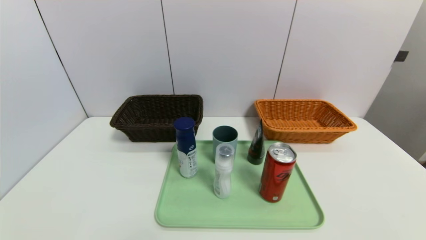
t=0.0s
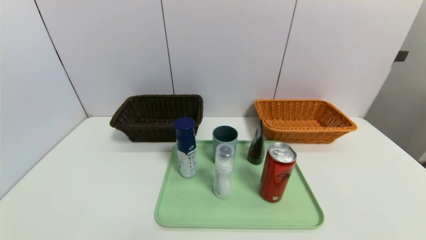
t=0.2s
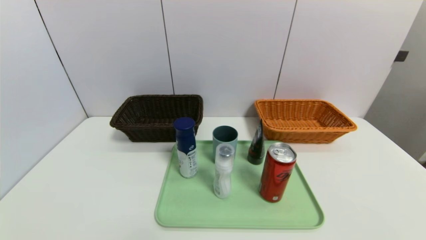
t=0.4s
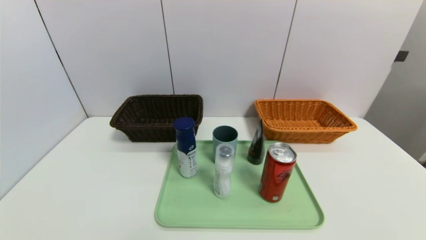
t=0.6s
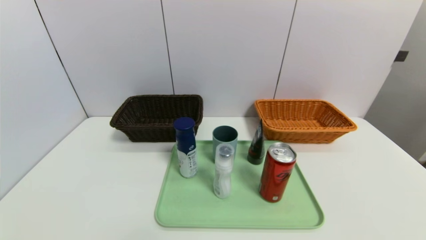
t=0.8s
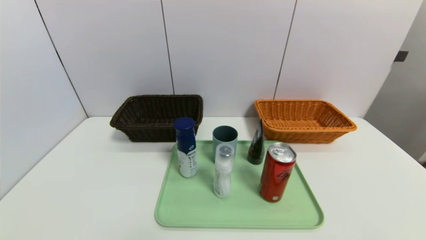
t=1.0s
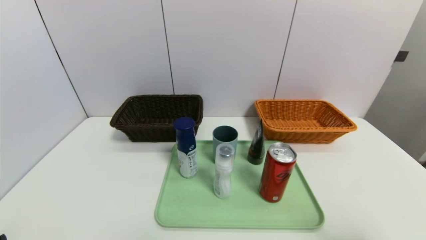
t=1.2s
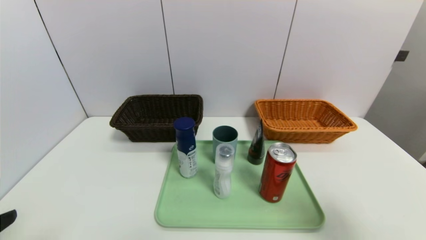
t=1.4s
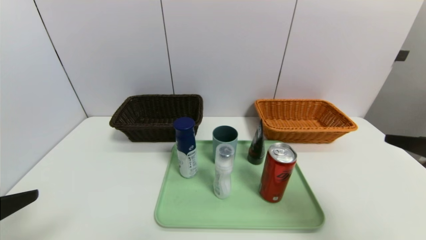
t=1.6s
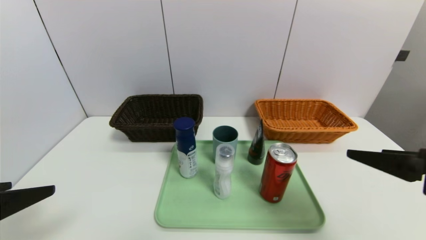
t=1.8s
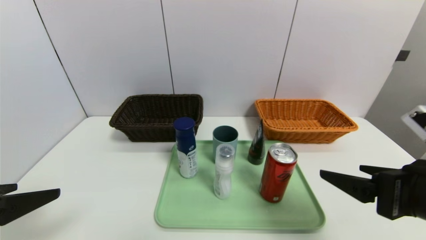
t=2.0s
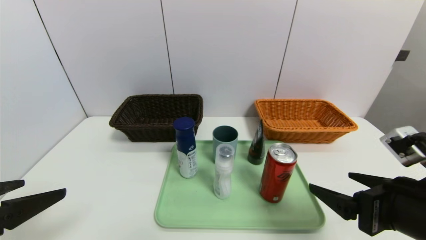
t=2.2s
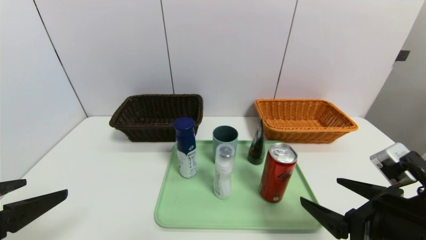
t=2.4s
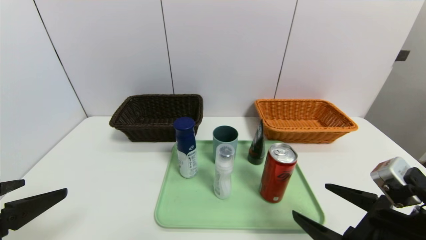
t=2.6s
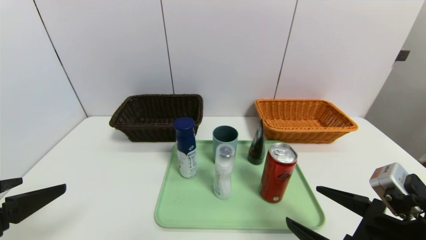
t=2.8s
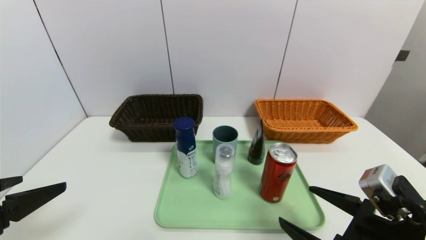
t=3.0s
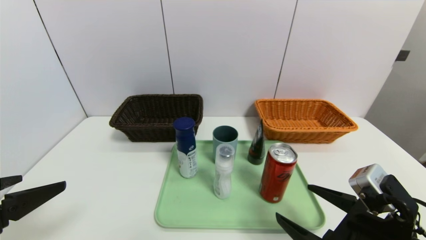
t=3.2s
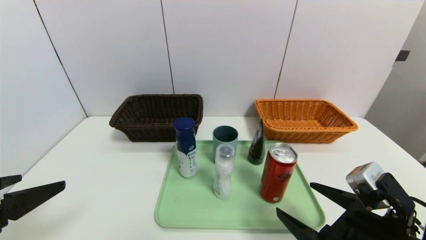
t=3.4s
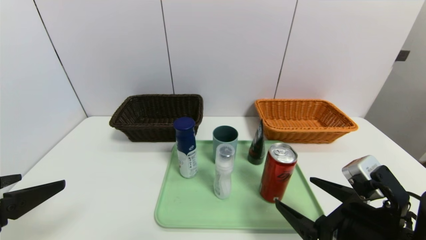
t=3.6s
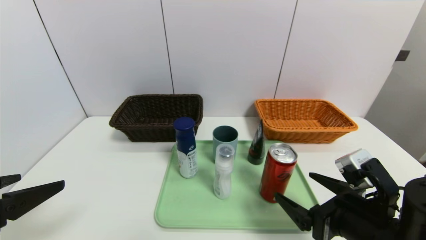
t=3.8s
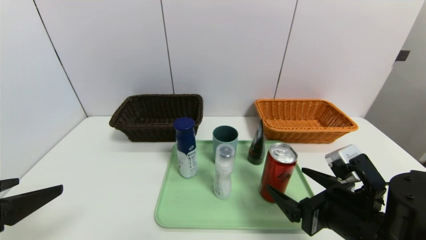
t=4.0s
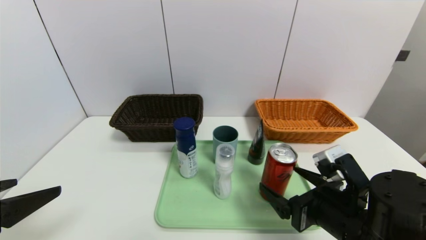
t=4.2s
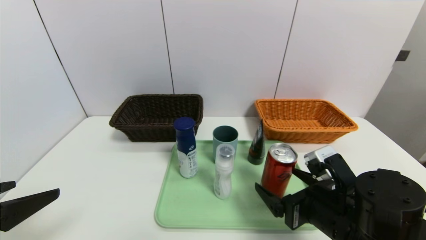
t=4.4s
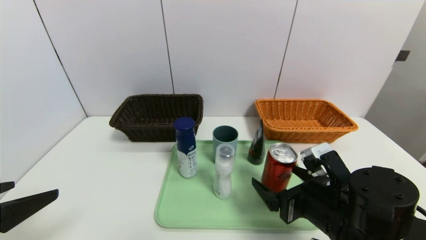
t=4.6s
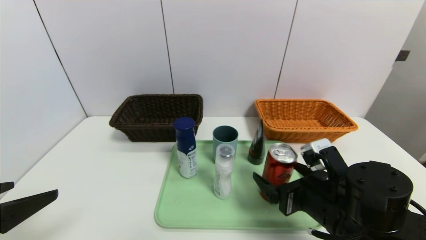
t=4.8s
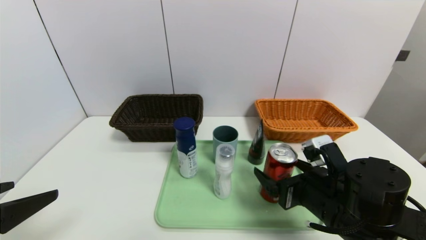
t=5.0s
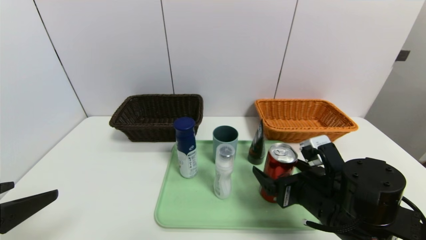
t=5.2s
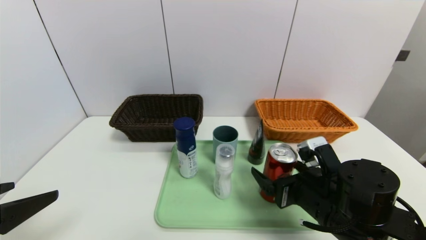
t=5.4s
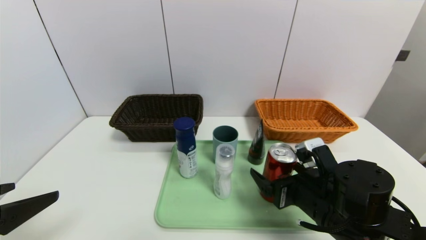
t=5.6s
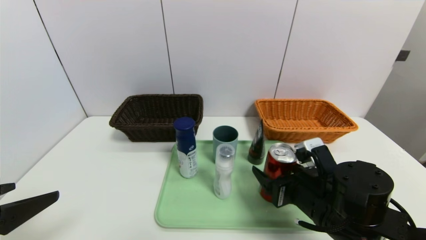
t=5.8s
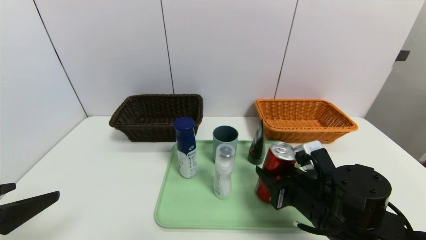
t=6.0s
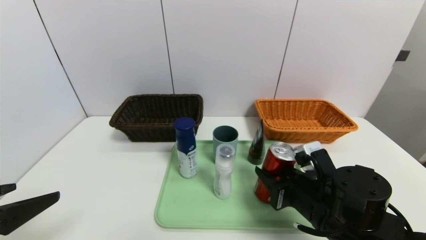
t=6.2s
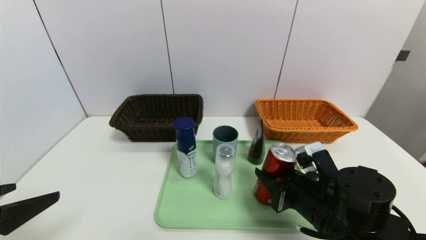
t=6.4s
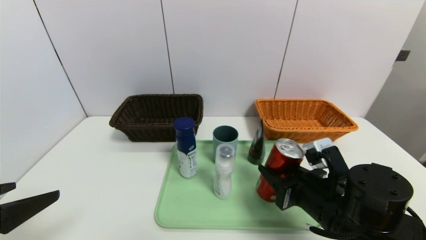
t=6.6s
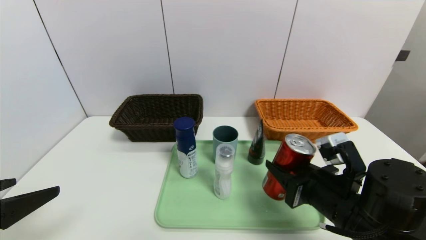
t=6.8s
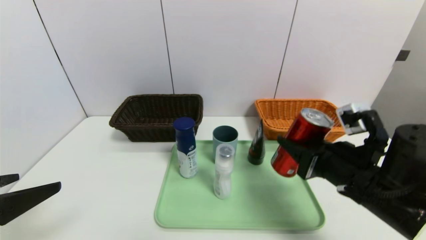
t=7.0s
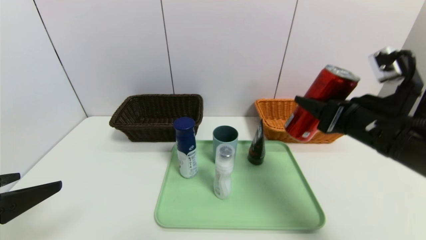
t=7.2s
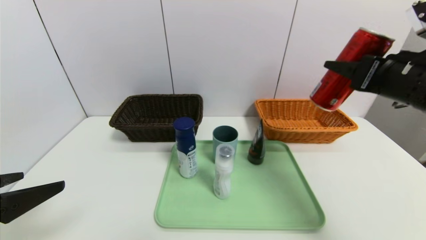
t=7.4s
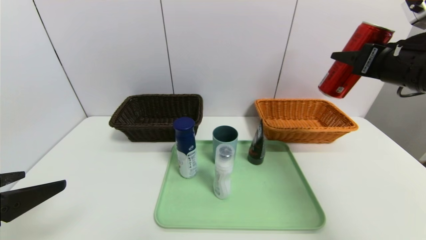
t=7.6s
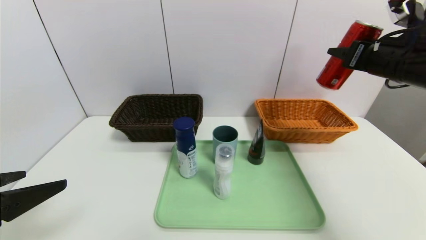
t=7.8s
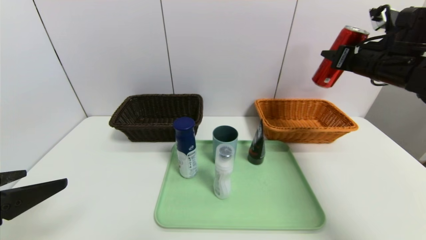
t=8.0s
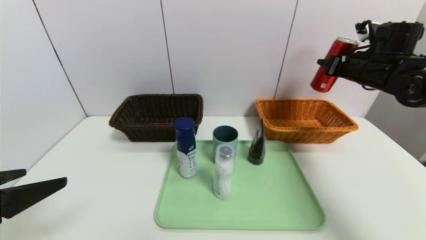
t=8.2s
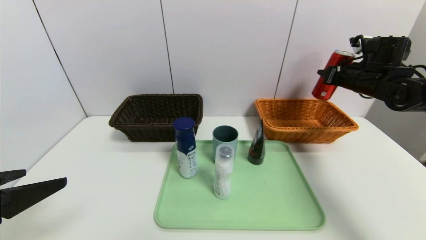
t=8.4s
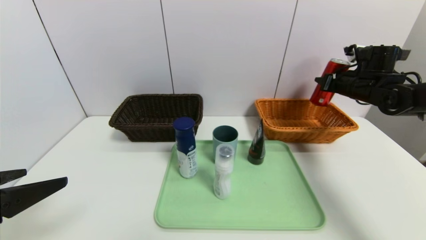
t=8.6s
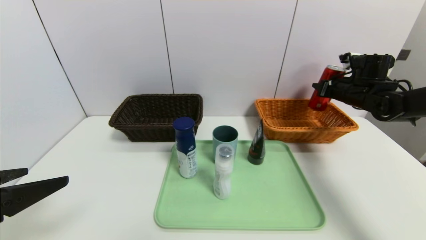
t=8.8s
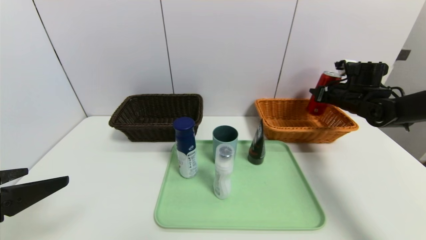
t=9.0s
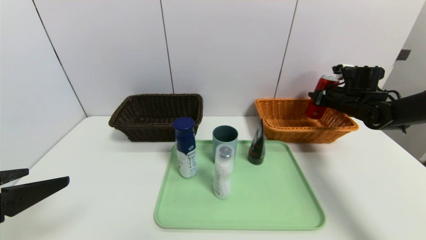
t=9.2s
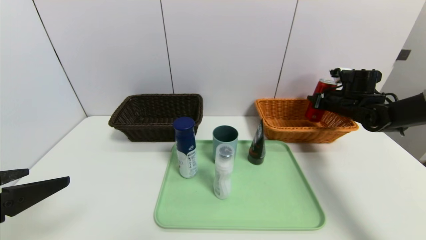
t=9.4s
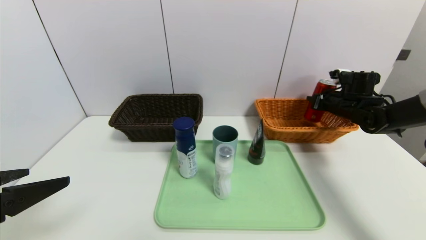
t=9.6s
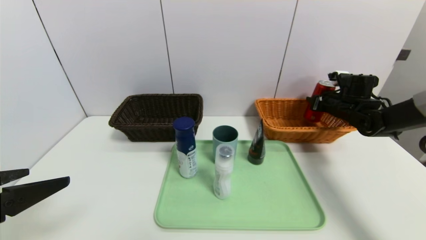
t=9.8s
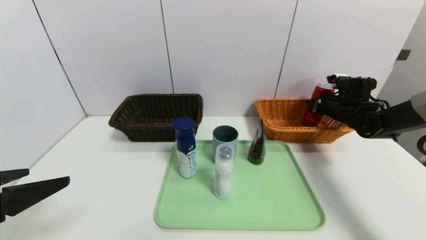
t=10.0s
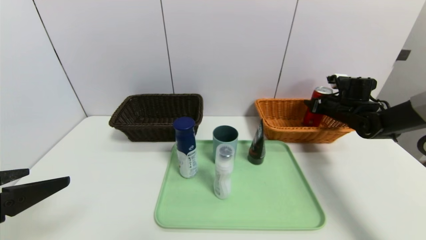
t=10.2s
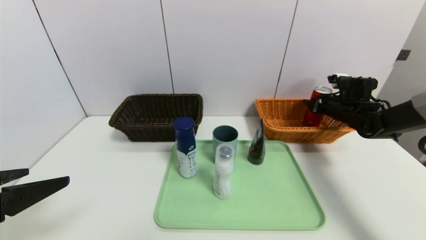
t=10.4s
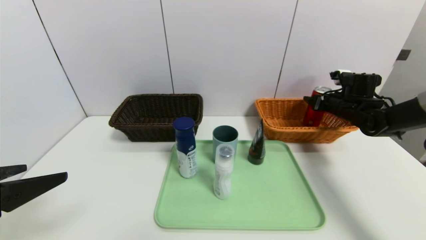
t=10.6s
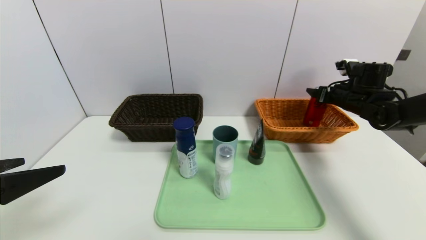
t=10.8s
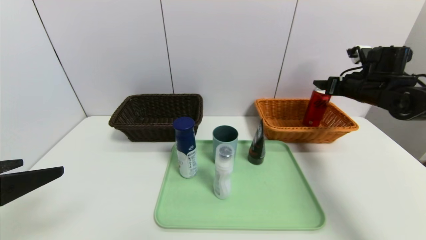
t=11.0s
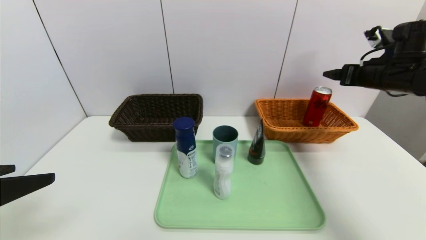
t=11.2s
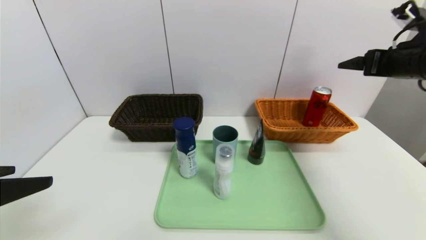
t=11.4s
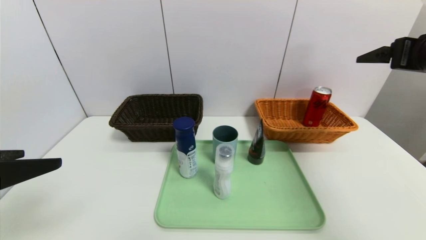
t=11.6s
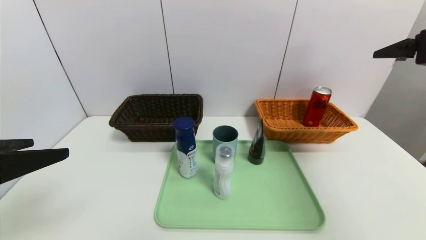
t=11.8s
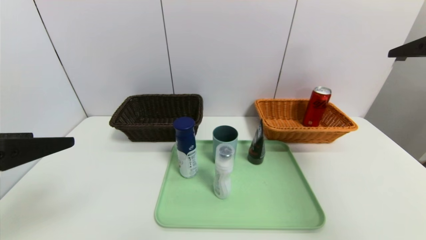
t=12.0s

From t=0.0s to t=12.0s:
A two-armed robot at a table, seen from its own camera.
Task of the whole recording: place the food in the right basket with the right gripper, and place the non food items in the left basket with the left gripper.
Step, from t=0.0s to t=11.2s: Grasp the canned cola and put it in the right basket.
From t=0.0s to t=1.6s: The two grippers go some 20 cm upward and forward.
From t=1.6s to t=3.0s: The right gripper heads downward and to the left, covering roughly 15 cm.
From t=3.0s to t=4.4s: The right gripper is displaced forward by roughly 5 cm.
From t=4.4s to t=6.0s: The right gripper closes up.
From t=6.0s to t=7.6s: The right gripper heads upward and to the right, covering approximately 25 cm.
From t=7.6s to t=9.0s: The right gripper goes approximately 20 cm forward and downward.
From t=9.0s to t=10.4s: The right gripper opens up.
From t=10.4s to t=12.0s: The right gripper goes approximately 35 cm backward and upward, while the left gripper heads upward, covering some 5 cm.

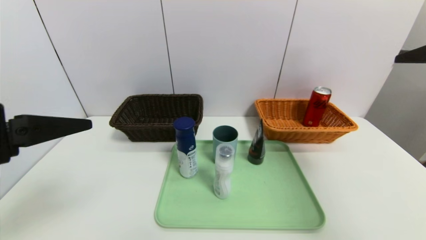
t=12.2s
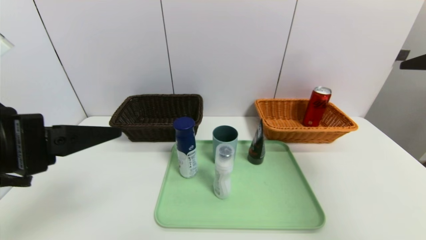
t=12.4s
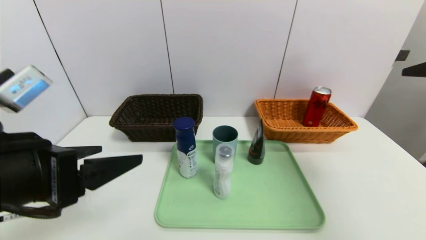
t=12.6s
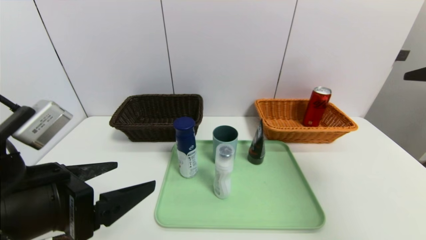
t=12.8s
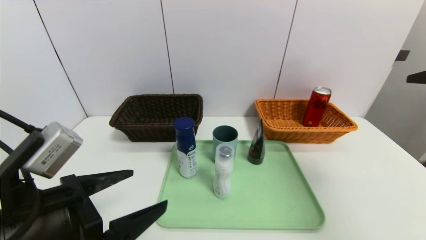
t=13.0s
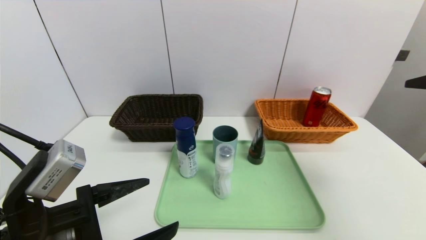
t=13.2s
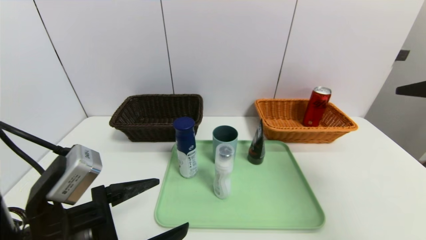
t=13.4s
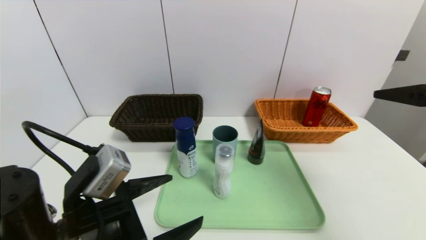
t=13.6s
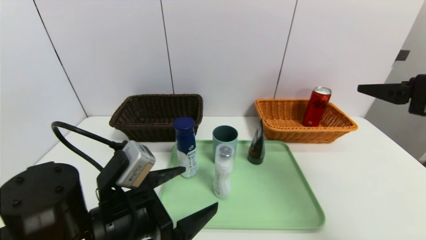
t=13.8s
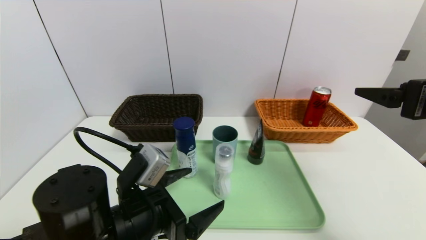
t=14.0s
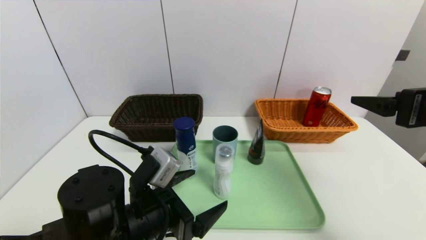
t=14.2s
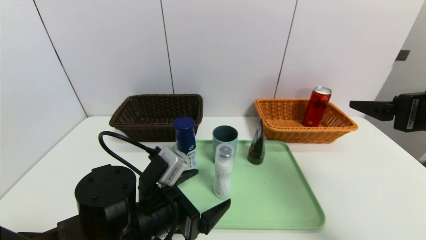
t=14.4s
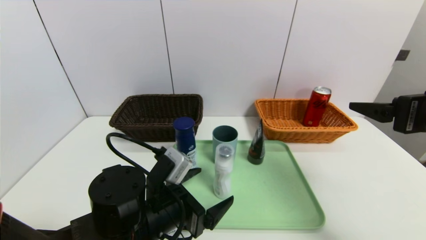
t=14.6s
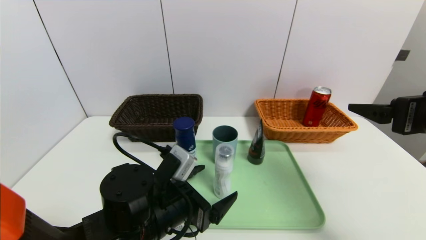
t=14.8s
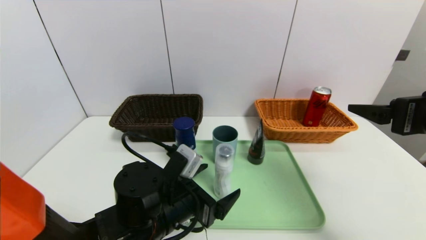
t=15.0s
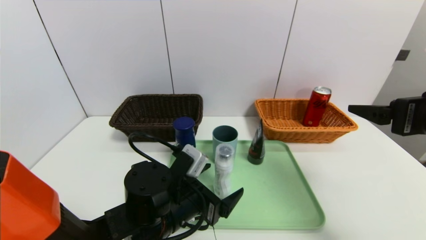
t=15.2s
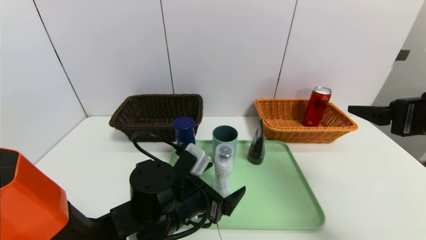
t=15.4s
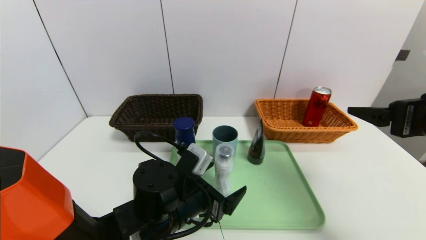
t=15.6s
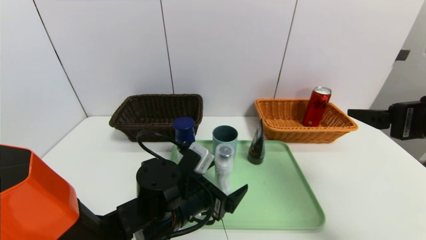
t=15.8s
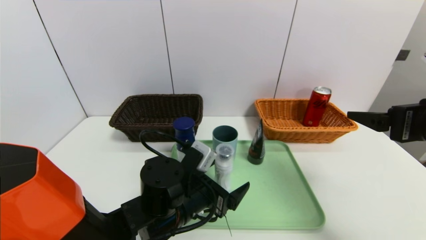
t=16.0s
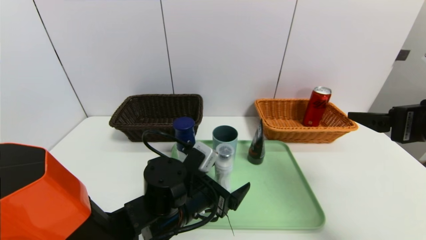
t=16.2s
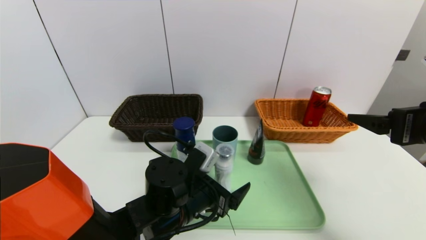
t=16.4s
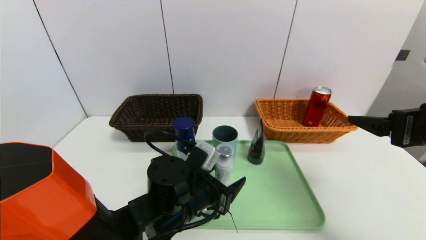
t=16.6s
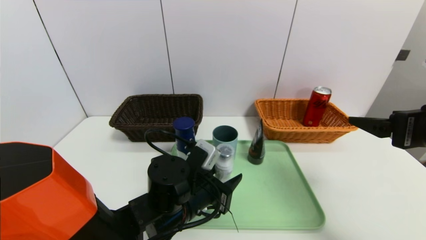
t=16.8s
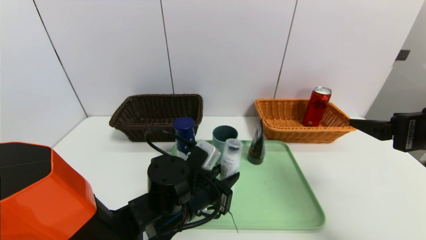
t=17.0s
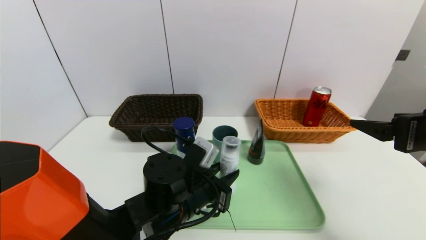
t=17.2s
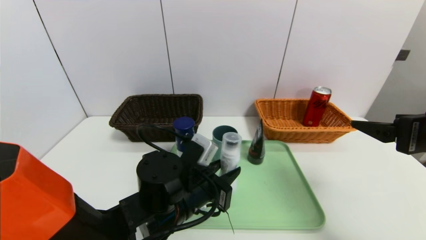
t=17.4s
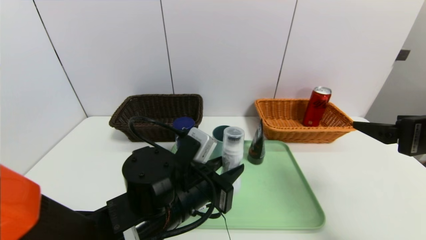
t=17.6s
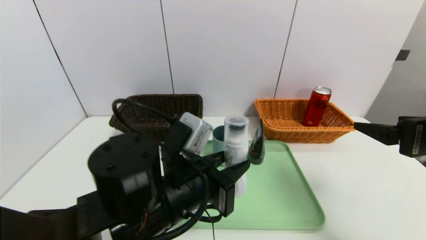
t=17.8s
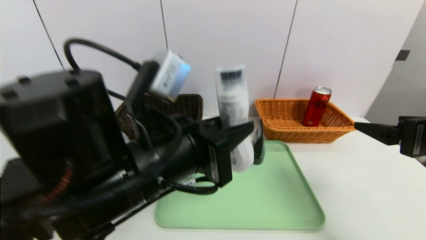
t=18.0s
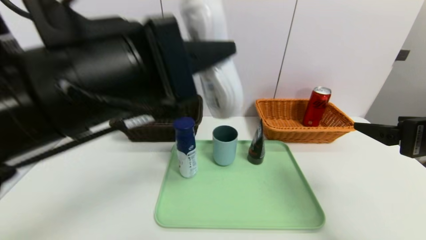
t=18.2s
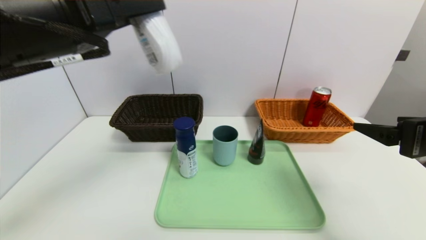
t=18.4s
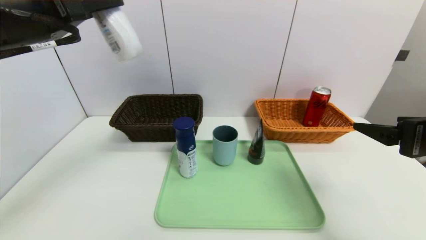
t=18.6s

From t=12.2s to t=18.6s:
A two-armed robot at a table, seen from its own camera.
Task of the whole recording: place the food in the right basket with the right gripper, and place the non food items in the left basket with the left gripper.
From t=12.2s to t=13.8s: The left gripper shifts approximately 20 cm downward and to the right. The right gripper goes approximately 5 cm downward.
From t=13.8s to t=15.4s: The left gripper is displaced to the right, forward and downward by roughly 10 cm.
From t=15.4s to t=17.0s: The left gripper closes up.
From t=17.0s to t=18.6s: The left gripper travels upward and to the left by approximately 30 cm.
